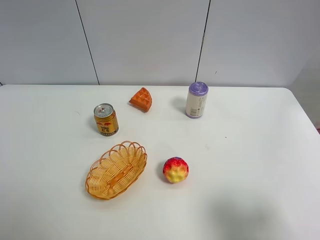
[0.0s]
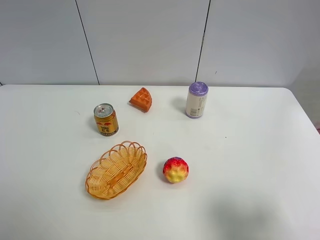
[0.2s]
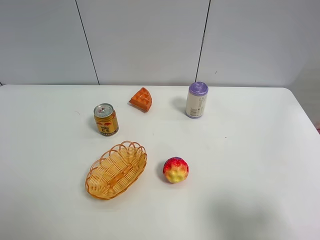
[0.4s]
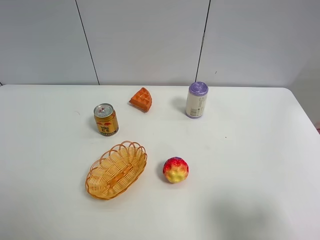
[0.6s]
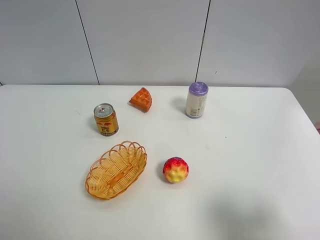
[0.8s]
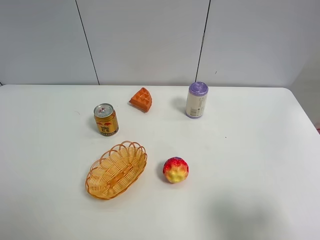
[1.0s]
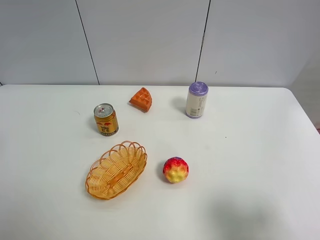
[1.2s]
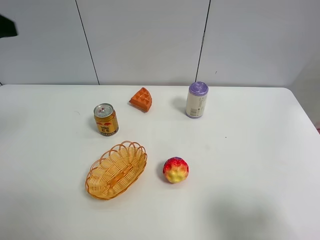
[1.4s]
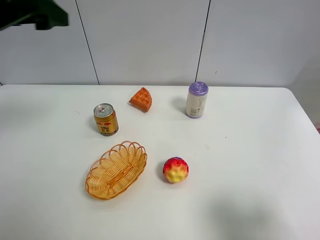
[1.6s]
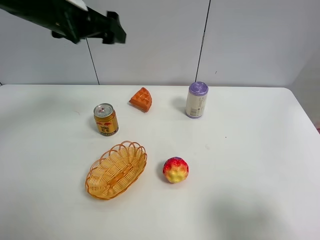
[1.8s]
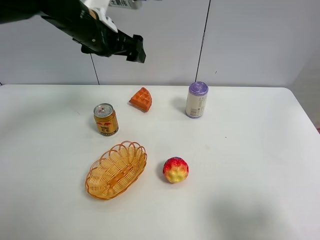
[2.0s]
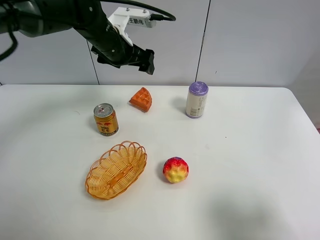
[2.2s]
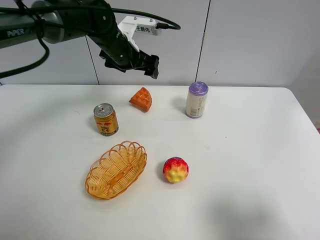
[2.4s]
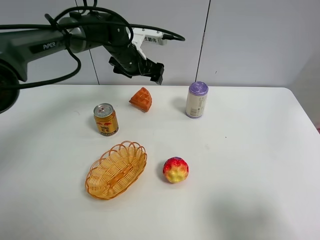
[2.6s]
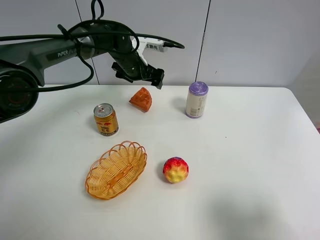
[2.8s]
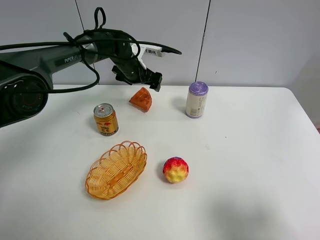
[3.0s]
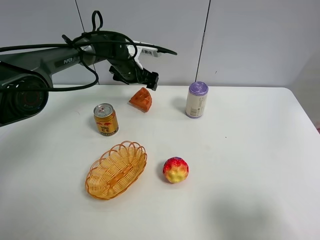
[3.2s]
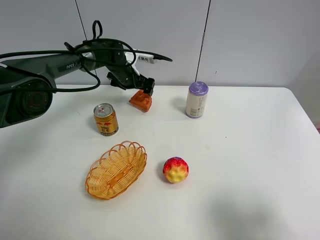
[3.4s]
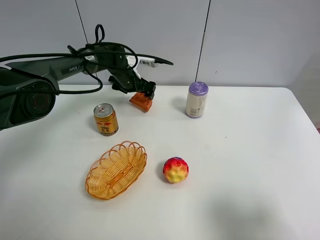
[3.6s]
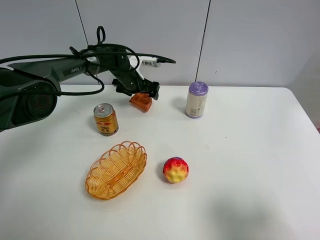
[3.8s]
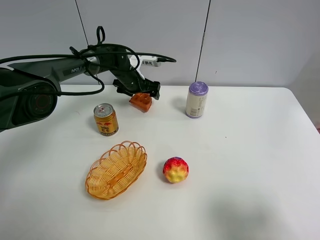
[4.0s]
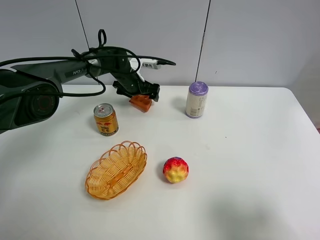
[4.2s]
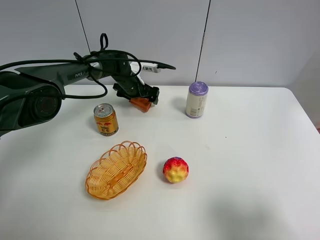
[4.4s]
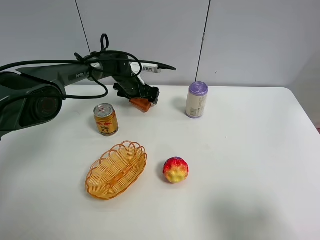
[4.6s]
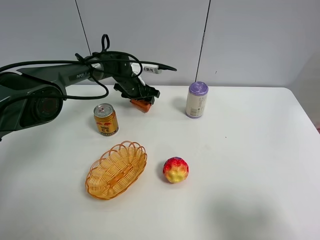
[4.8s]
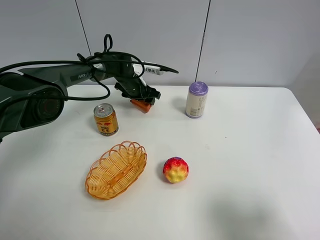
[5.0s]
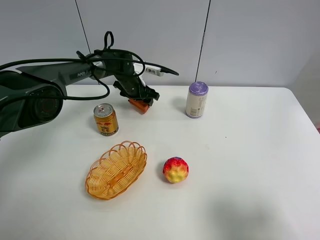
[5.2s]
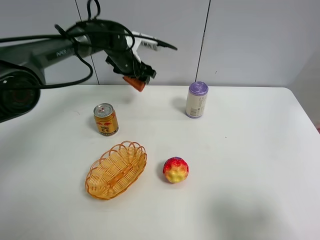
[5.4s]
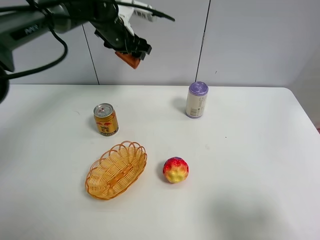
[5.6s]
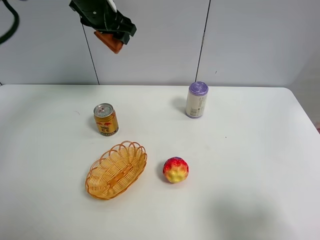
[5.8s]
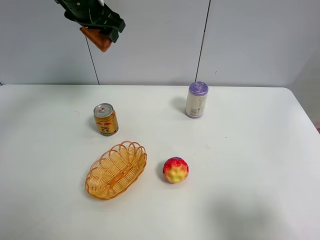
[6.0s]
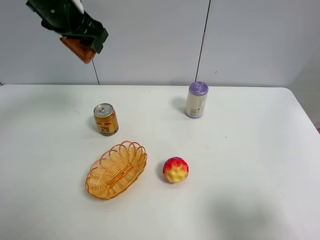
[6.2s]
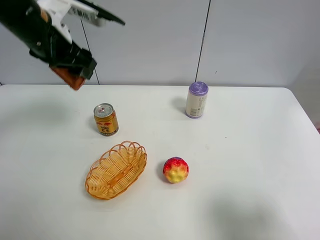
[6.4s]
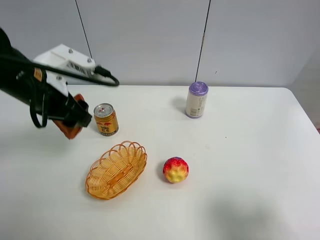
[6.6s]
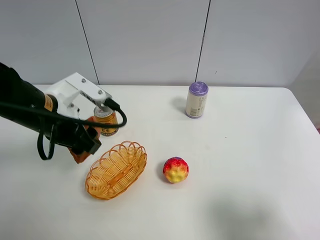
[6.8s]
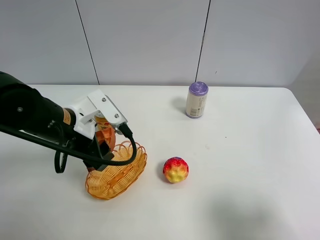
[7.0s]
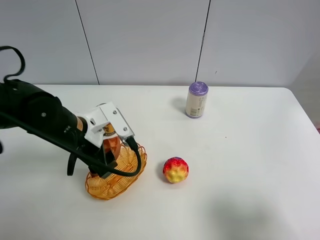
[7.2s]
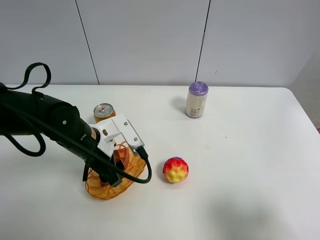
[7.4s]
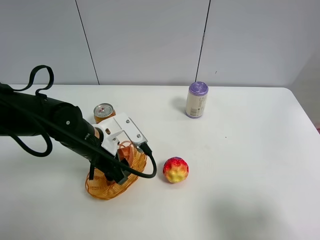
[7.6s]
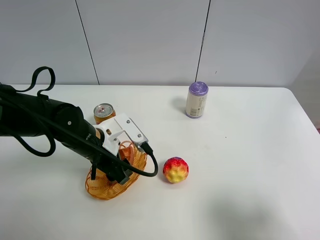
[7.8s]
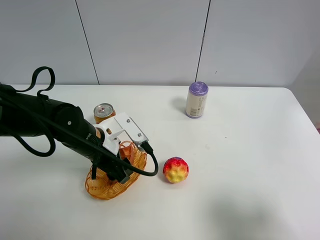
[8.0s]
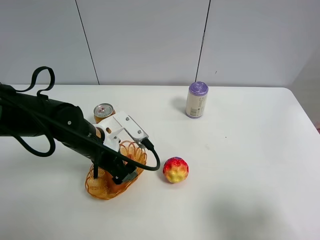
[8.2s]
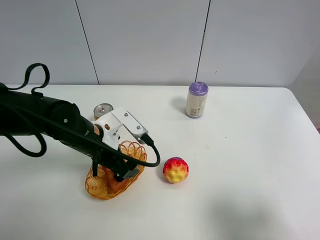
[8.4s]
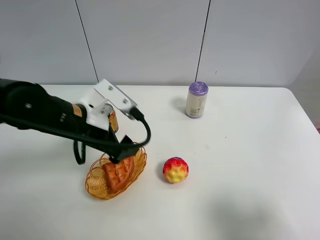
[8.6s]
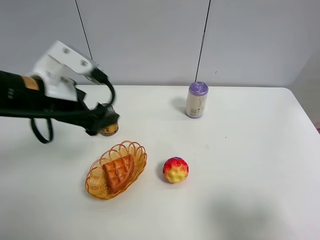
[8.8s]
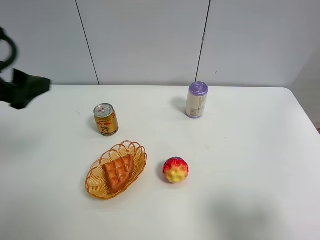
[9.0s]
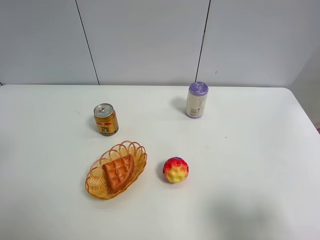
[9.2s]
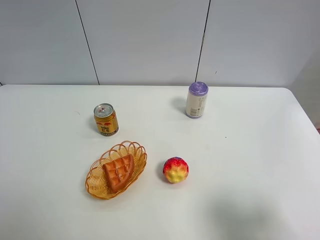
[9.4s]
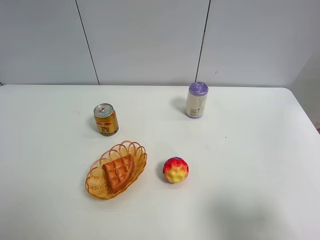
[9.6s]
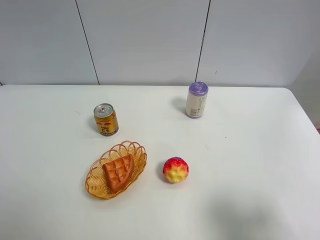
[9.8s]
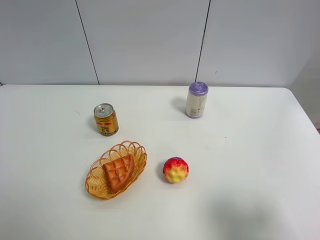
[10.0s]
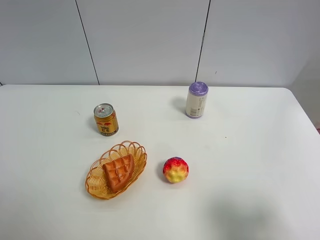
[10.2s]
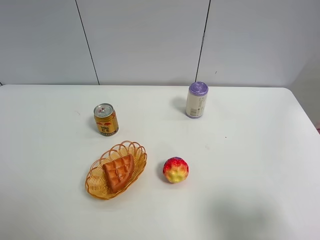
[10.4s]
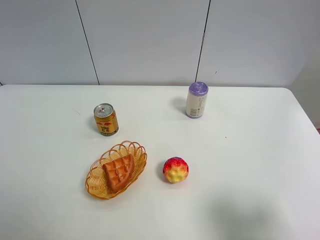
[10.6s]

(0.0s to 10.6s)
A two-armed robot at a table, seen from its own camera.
Task of the whole recording: Put the bakery in the basket.
0.0s - 1.6s: The left gripper shifts some 30 cm forward and upward.
1.6s - 3.0s: The left gripper shifts about 35 cm downward, forward and to the right.
3.0s - 4.6s: The left gripper heads downward, covering roughly 5 cm.
4.6s - 6.0s: The left gripper travels upward by approximately 25 cm, and closes.
6.0s - 7.6s: The left gripper moves downward and backward, roughly 30 cm.
7.6s - 9.0s: The left gripper heads upward and to the left, covering roughly 25 cm, and opens.
9.0s - 10.6s: The left gripper is displaced backward by about 20 cm.
